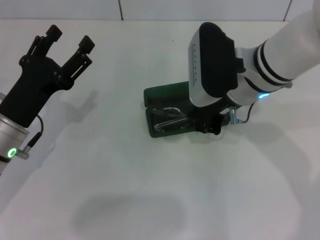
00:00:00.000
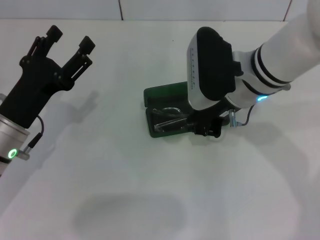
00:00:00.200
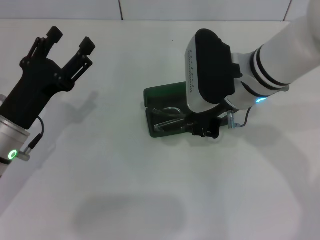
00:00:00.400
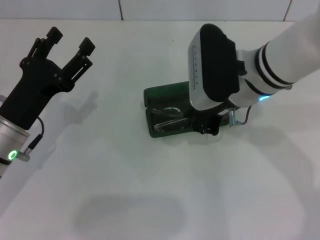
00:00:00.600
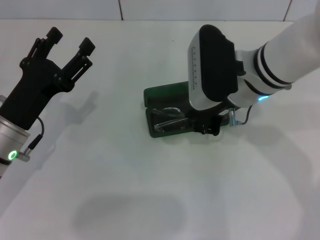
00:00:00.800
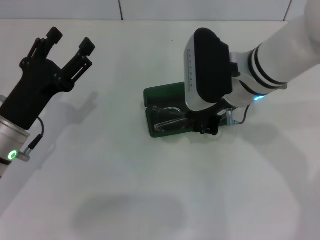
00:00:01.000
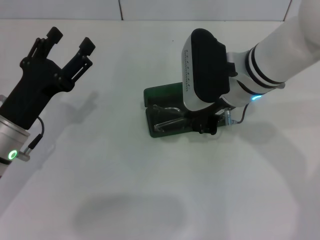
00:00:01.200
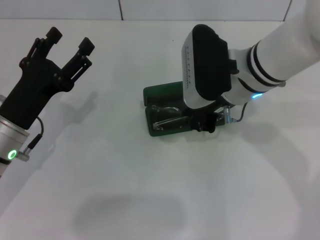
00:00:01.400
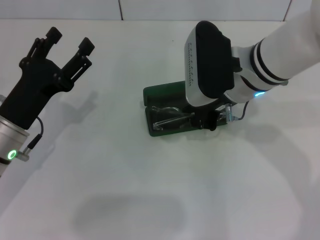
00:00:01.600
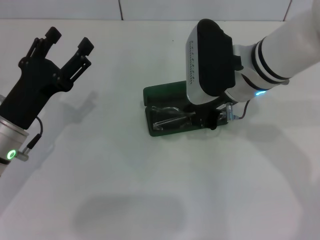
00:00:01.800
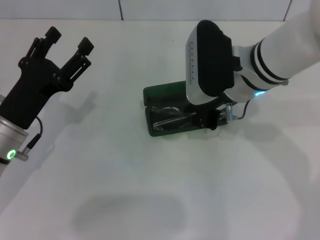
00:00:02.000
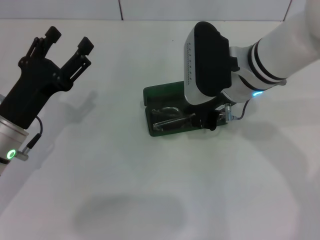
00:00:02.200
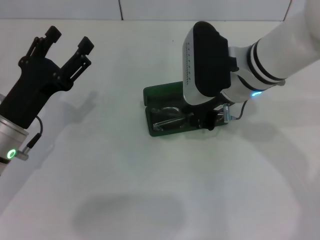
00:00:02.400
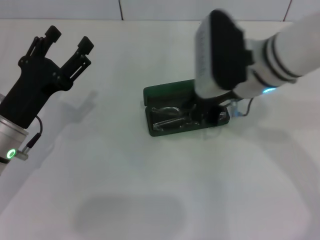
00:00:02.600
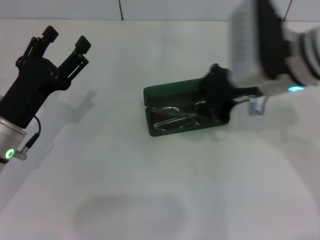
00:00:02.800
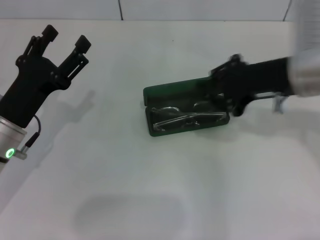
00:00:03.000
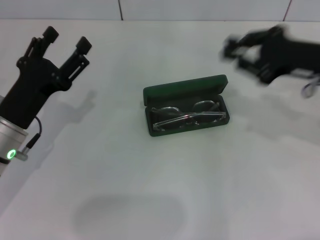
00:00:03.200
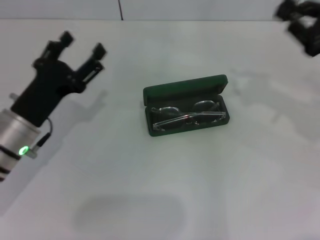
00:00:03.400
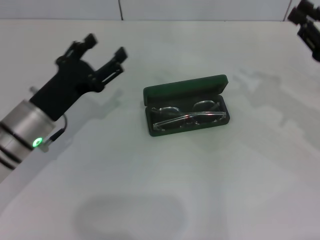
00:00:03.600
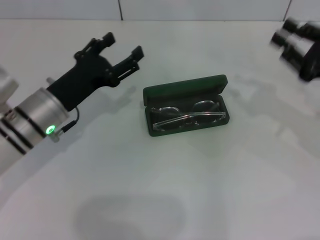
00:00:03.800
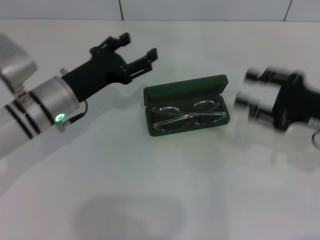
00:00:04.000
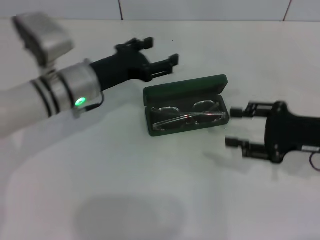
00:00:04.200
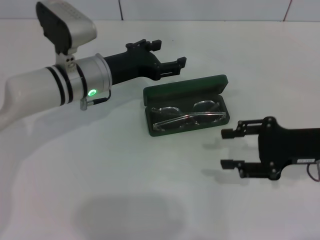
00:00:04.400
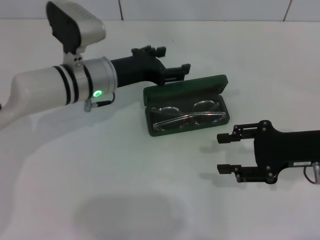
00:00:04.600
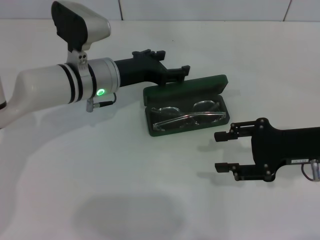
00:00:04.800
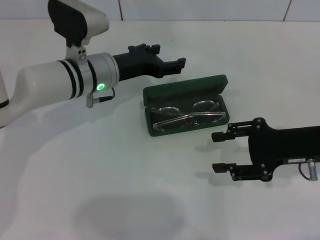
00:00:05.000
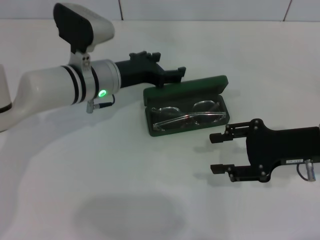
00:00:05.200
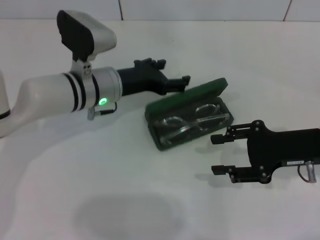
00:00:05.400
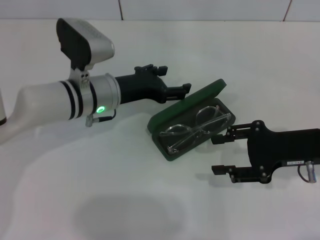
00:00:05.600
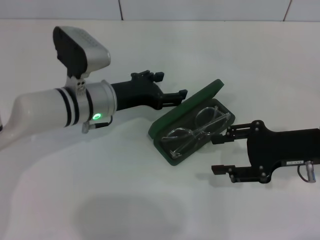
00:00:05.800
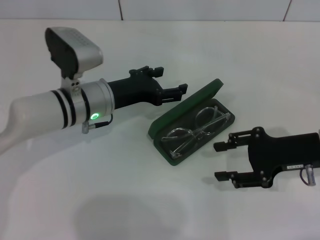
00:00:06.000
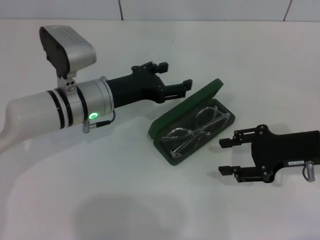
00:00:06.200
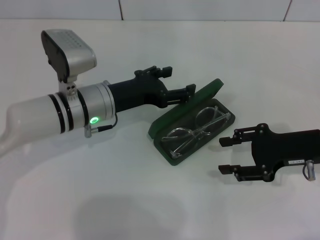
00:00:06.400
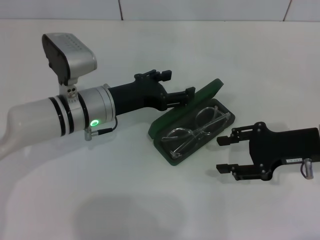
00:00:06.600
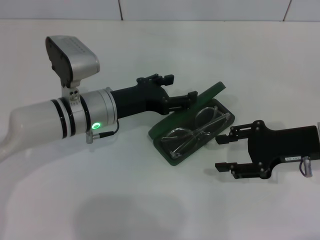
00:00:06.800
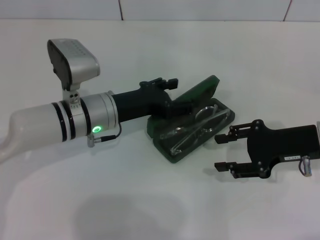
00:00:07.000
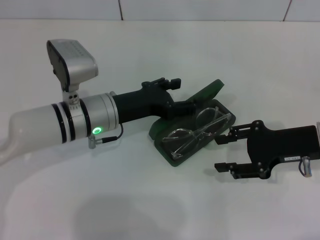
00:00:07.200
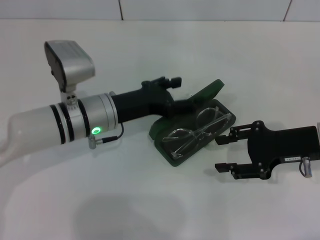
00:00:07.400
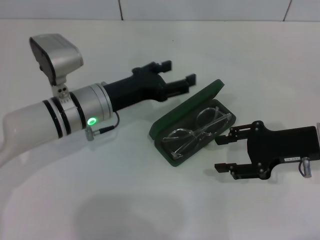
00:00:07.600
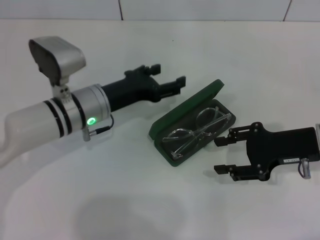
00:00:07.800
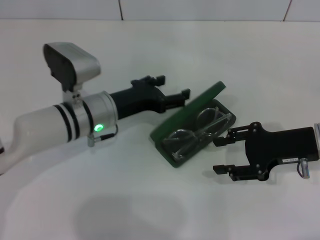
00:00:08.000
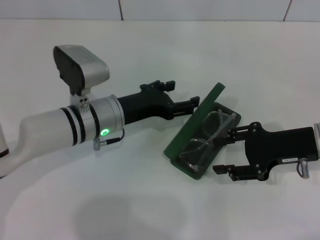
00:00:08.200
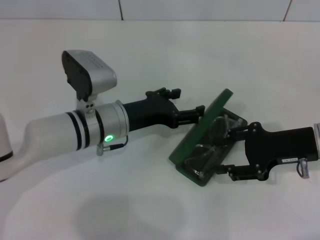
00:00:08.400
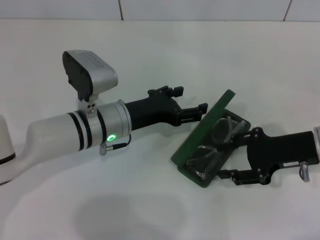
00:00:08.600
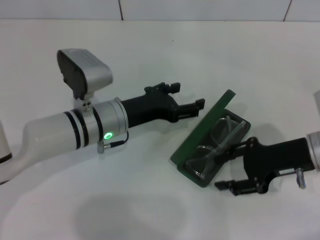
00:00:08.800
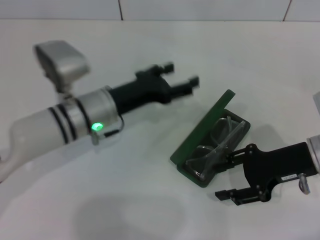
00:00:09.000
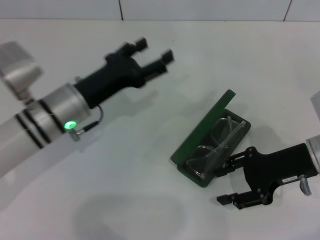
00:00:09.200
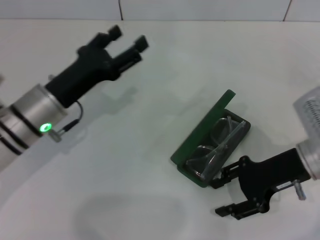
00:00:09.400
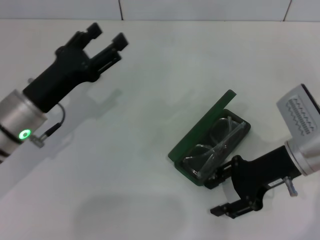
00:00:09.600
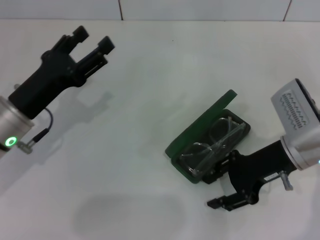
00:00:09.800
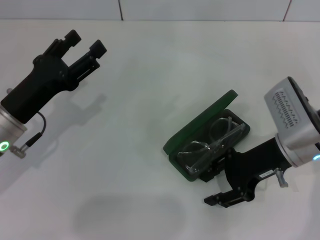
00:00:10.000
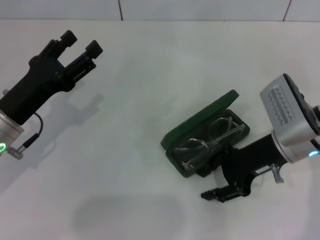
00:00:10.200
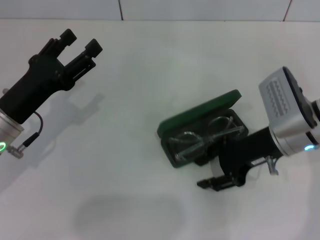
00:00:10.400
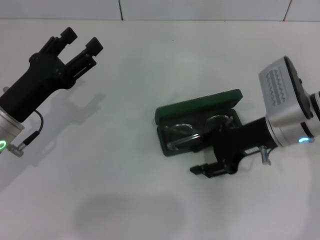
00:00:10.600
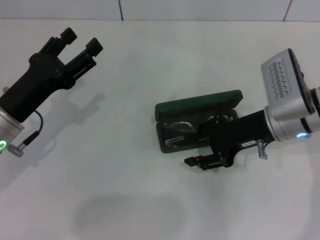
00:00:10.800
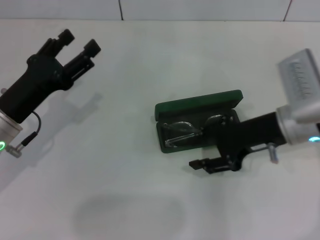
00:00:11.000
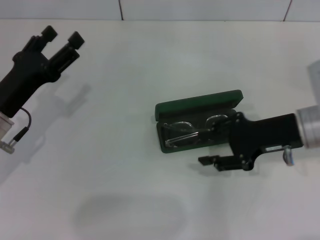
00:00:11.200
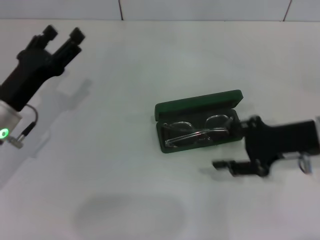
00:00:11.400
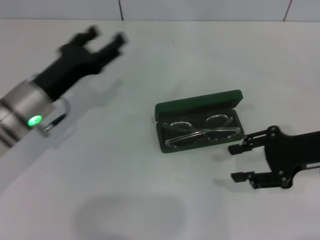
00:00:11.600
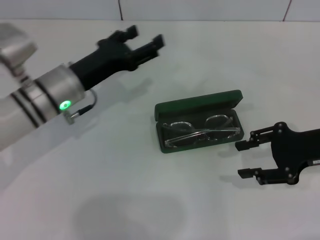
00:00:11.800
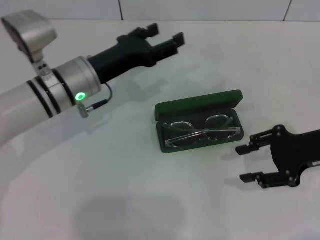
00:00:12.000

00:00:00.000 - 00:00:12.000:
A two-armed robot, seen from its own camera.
00:00:00.000 - 00:00:01.600: Both grippers stay about where they are.
00:00:01.600 - 00:00:03.000: The right gripper goes approximately 10 cm to the right.
00:00:03.000 - 00:00:04.400: The right gripper travels downward and to the right by about 10 cm, and opens; the left gripper moves forward and to the right, approximately 15 cm.
00:00:06.000 - 00:00:09.000: The grippers make only small movements.
00:00:09.000 - 00:00:10.400: The left gripper shifts some 10 cm to the left and backward. The right gripper goes approximately 5 cm to the left.
00:00:10.400 - 00:00:12.000: The right gripper goes about 10 cm to the right, while the left gripper moves to the right and forward, approximately 10 cm.

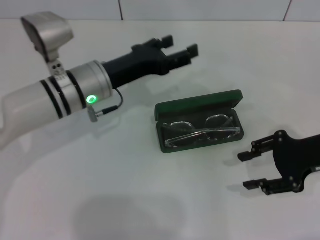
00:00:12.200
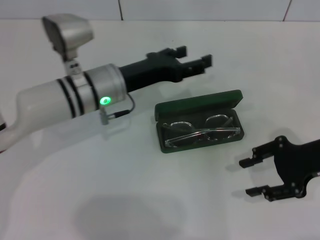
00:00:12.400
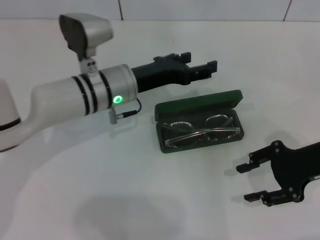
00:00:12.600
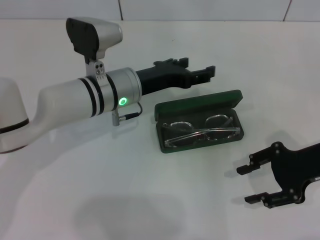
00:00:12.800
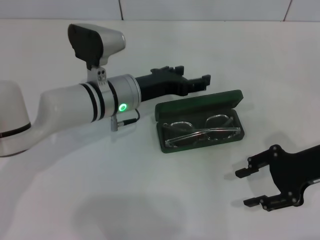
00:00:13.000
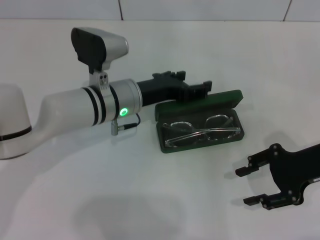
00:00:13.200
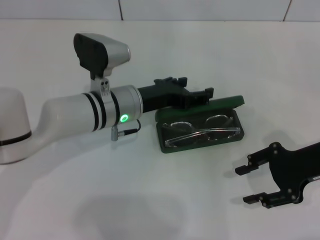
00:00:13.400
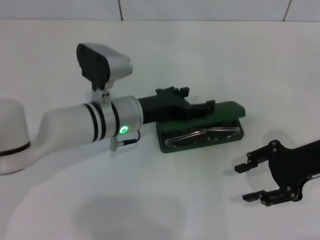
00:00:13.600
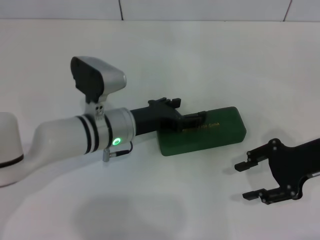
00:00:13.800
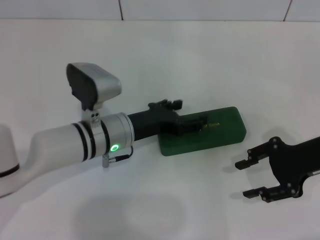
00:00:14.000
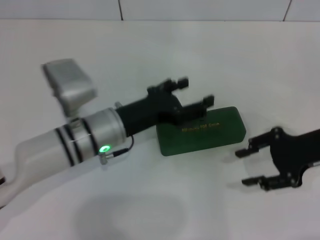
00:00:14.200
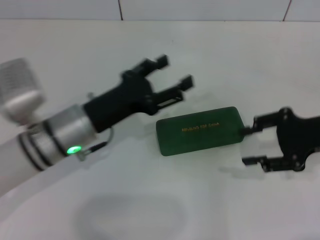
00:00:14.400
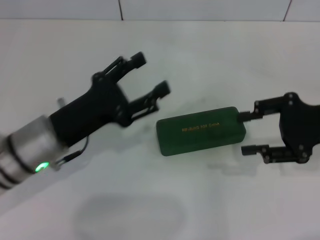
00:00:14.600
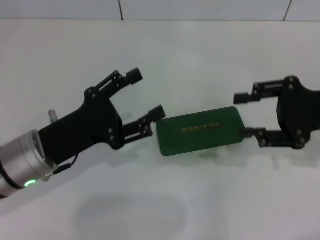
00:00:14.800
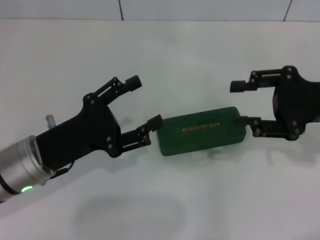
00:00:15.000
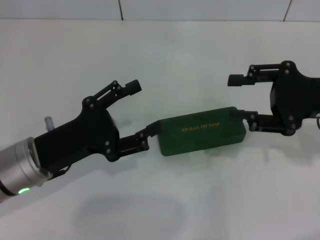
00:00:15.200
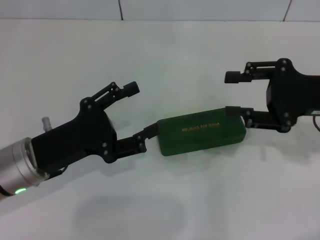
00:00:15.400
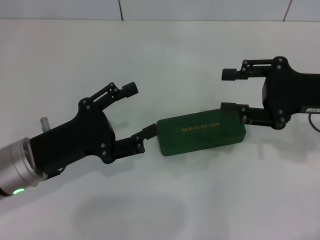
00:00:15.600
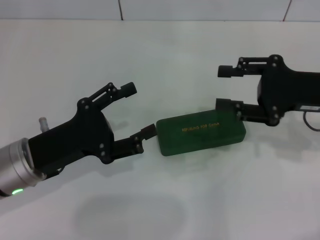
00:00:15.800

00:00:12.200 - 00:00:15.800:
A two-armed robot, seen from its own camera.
00:00:12.200 - 00:00:14.000: The left gripper is displaced downward by approximately 5 cm.
00:00:14.000 - 00:00:15.800: The left gripper heads to the left and backward, covering approximately 15 cm.
